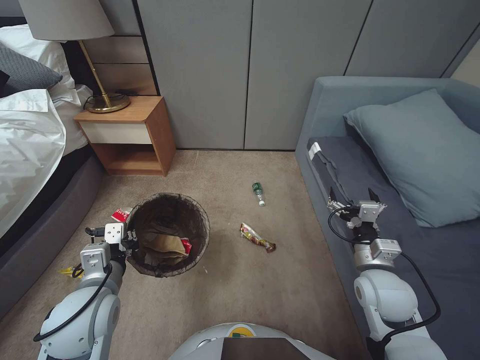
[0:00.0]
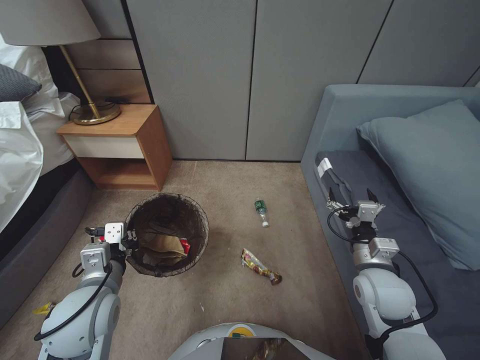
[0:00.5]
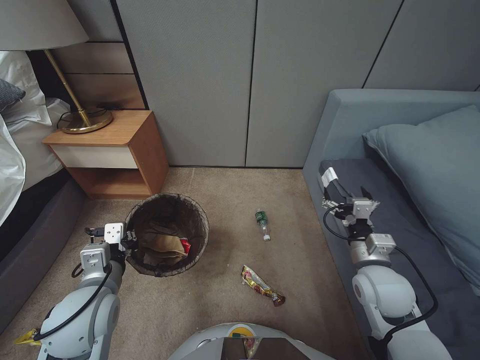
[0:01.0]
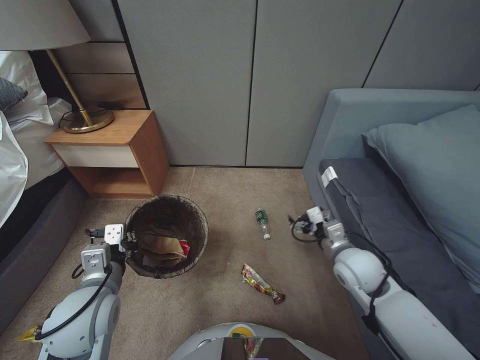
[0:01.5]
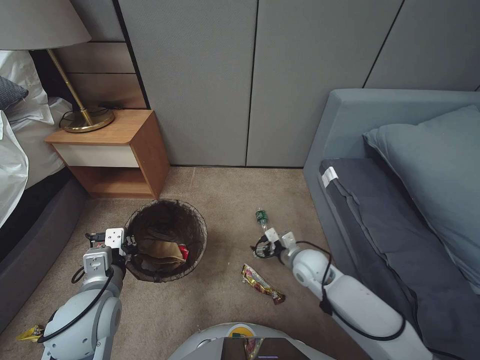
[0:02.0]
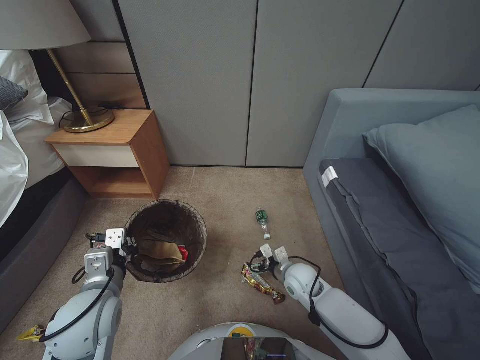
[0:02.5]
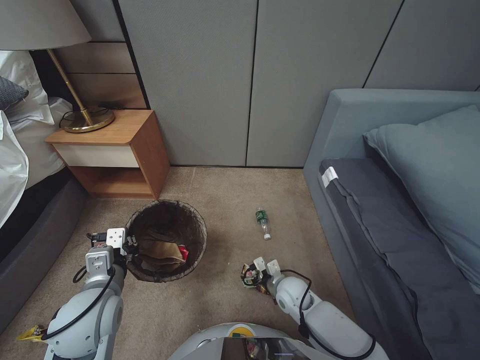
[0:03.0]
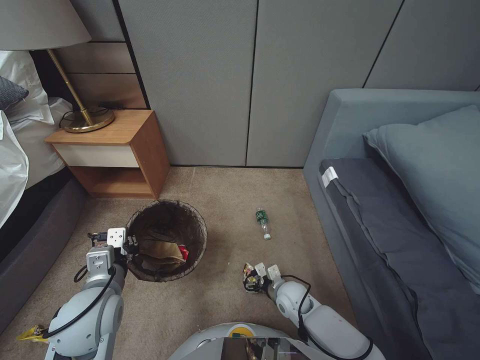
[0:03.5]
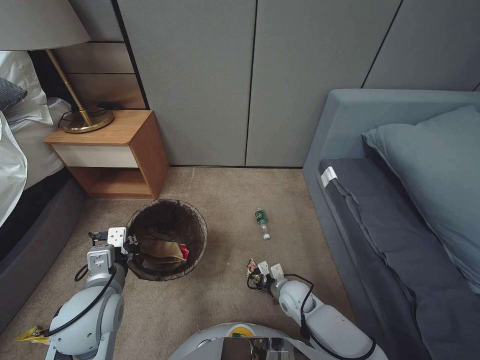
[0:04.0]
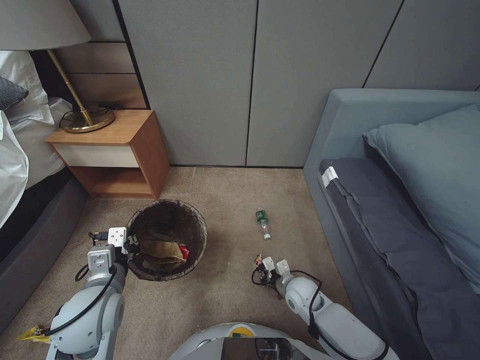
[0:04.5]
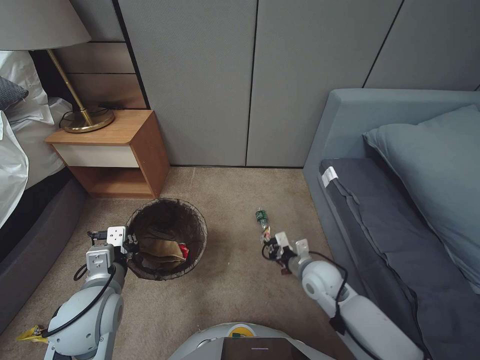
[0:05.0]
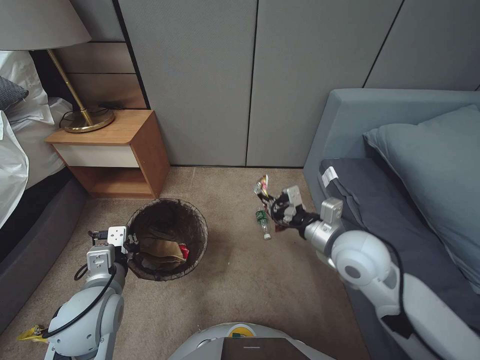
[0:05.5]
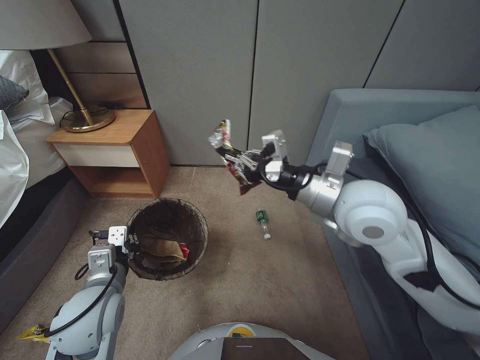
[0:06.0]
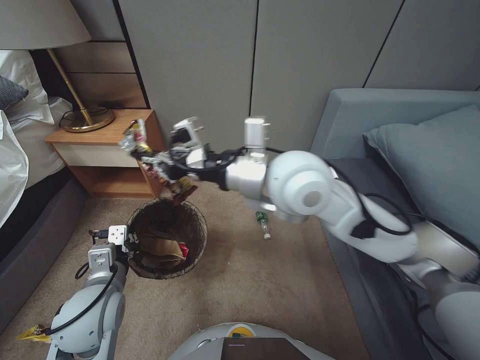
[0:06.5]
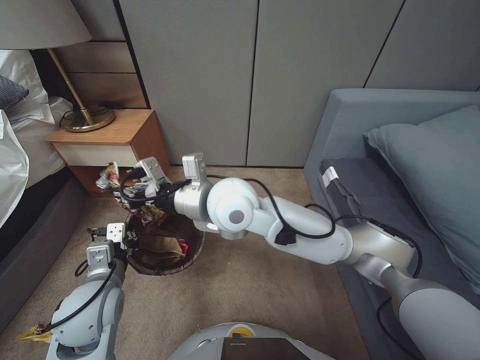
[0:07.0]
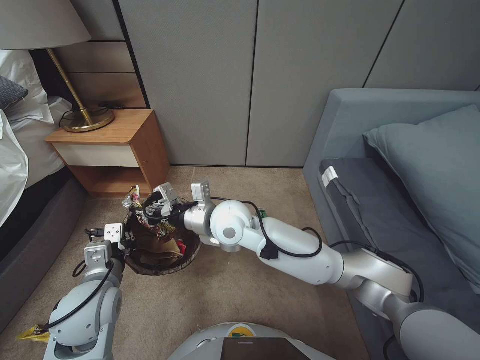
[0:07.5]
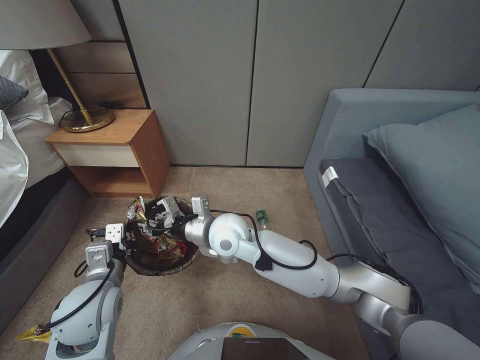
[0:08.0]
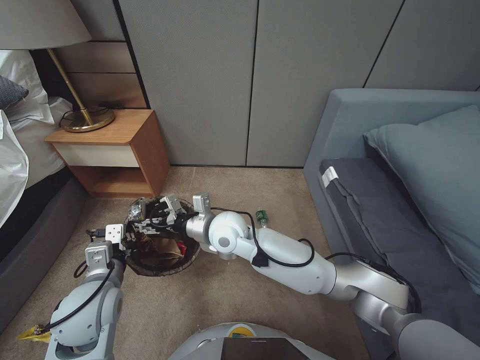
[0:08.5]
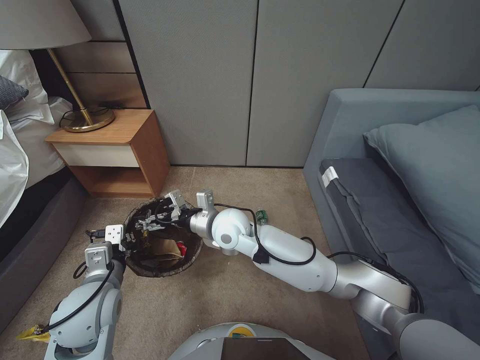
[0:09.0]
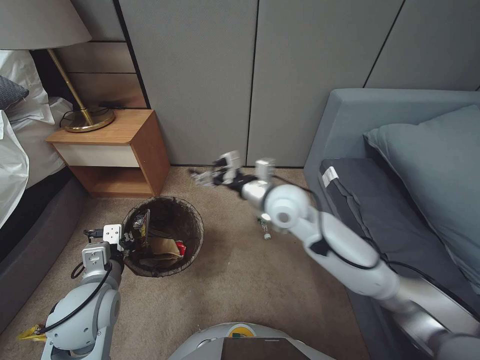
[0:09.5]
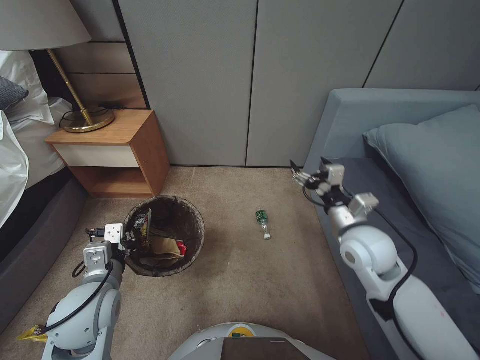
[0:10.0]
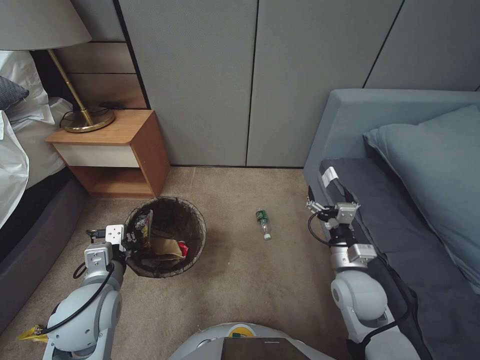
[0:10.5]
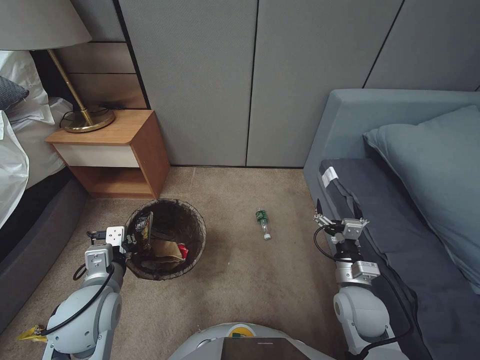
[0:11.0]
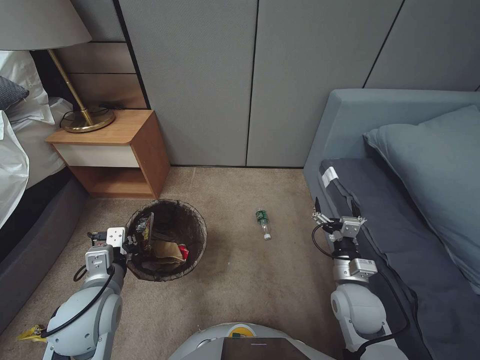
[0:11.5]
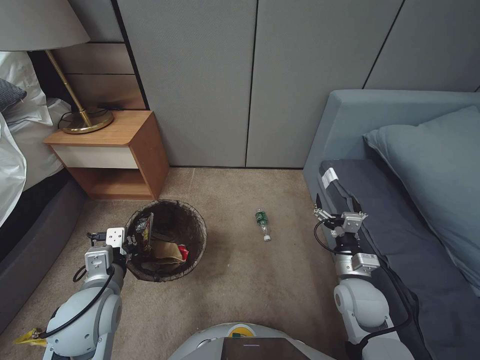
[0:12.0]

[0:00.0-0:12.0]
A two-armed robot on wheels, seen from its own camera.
Task of the whole recording: Pick up the trash bin, then pick up the garbage from the floor and place it into the trash bin.
0:00.0 to 0:02.0: The right gripper moves forward, downward and to the left, some 15 cm.
0:02.0 to 0:04.0: The right gripper is displaced downward by some 15 cm, and closes.
0:04.0 to 0:06.0: The right gripper shifts approximately 40 cm upward, and closes.
0:06.0 to 0:08.0: The right gripper travels to the left and downward by about 25 cm.
0:08.0 to 0:10.0: The right gripper moves to the right, roughly 30 cm, and opens.
0:10.0 to 0:12.0: The right gripper shifts some 15 cm downward and backward.

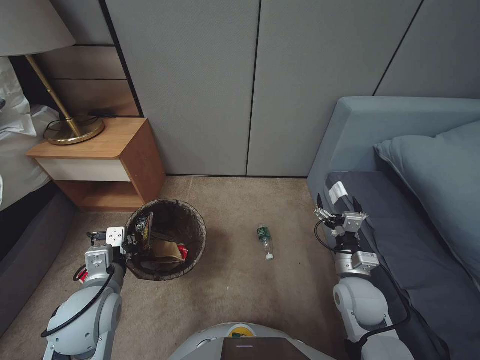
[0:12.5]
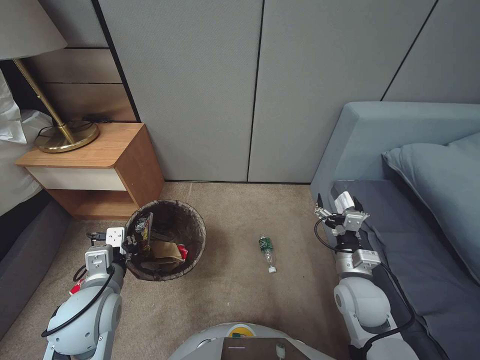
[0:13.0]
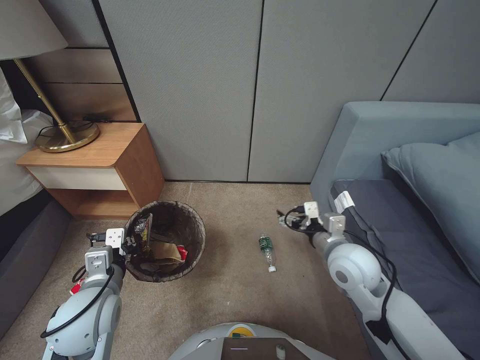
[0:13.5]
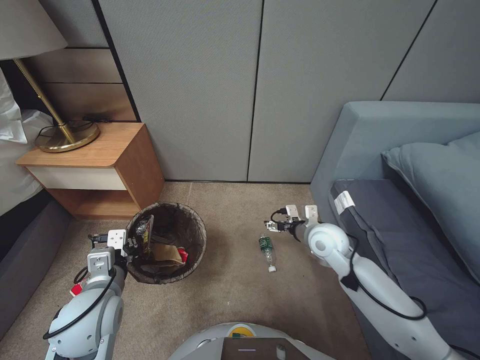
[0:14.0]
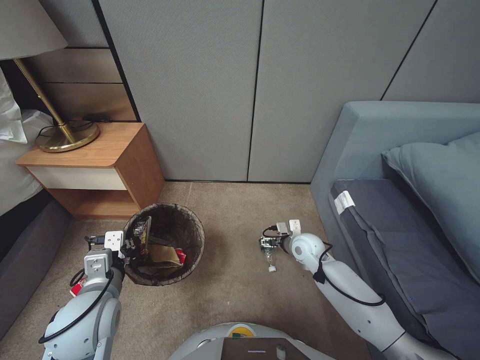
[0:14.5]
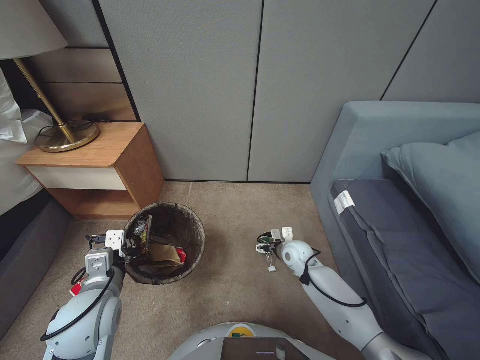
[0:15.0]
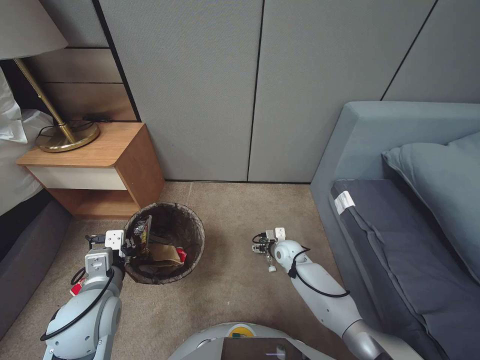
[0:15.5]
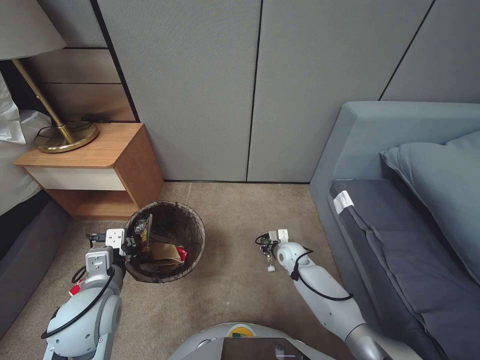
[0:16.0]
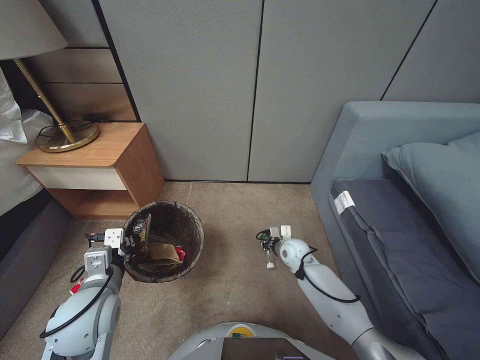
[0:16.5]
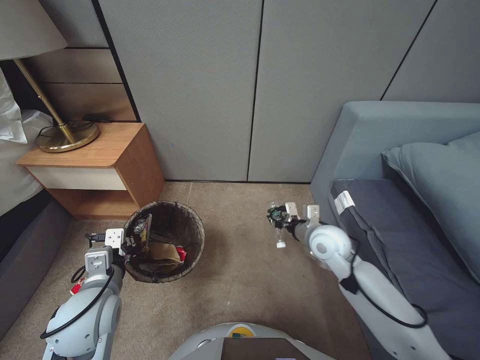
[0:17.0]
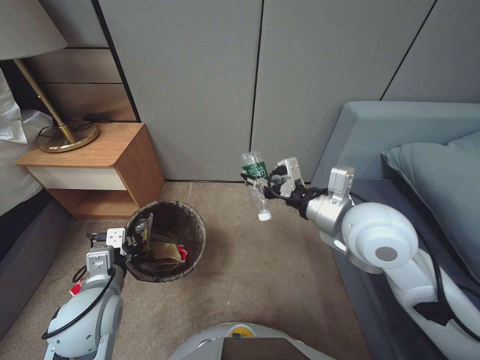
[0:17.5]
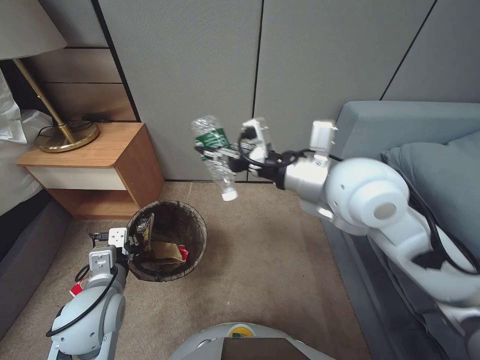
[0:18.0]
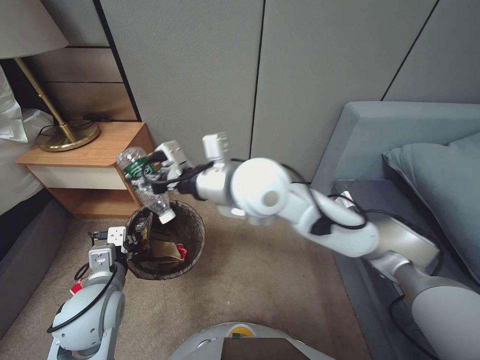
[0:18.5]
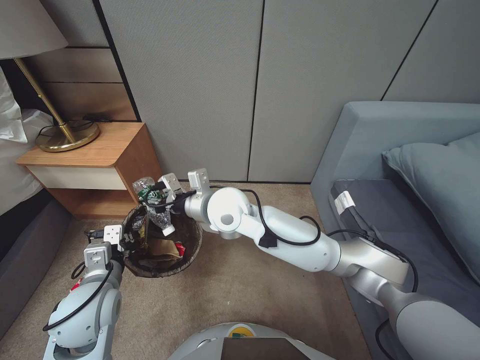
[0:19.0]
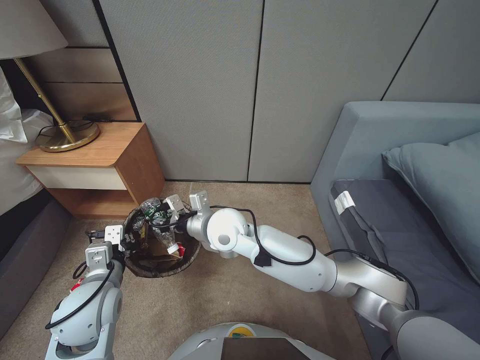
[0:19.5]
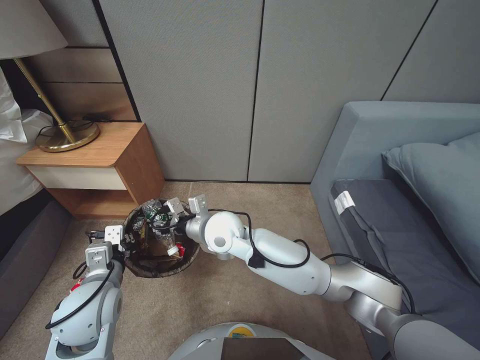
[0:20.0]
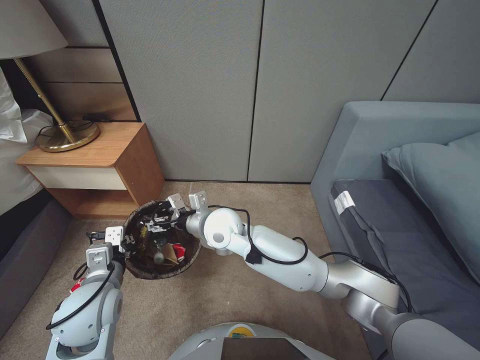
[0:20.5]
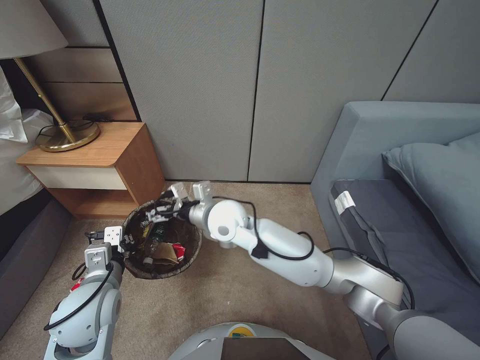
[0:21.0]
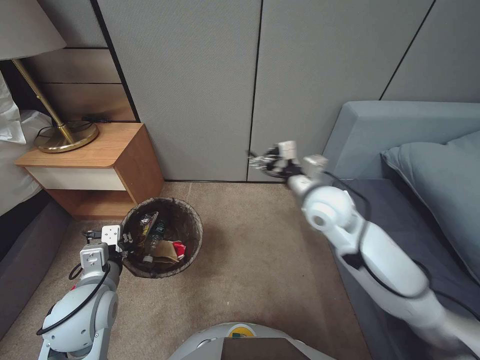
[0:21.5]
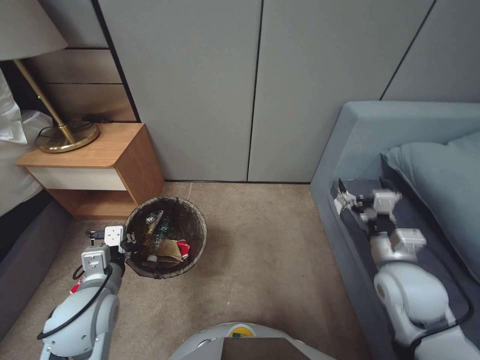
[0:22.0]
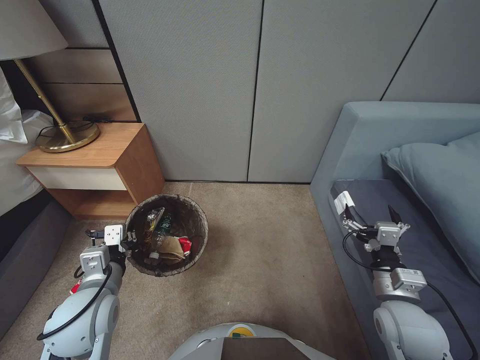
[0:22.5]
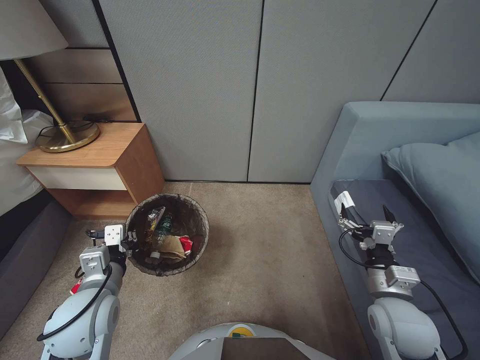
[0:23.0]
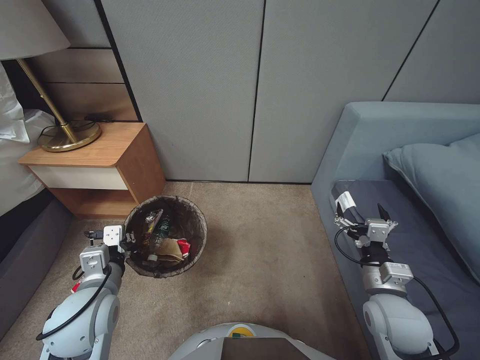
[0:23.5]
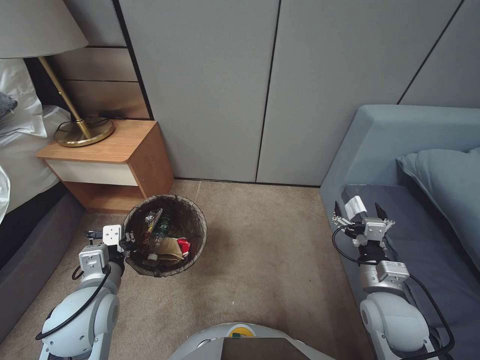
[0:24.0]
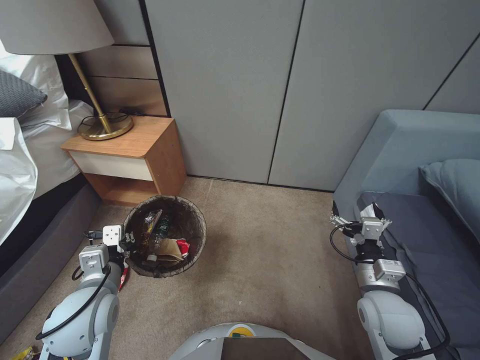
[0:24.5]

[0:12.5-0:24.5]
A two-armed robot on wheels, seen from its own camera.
Task of the whole recording: Pick up the trash bin, then pick up the garbage from the floor and place it into the trash bin.
0:12.5 to 0:14.5: The right gripper is displaced forward by approximately 15 cm.
0:14.5 to 0:16.5: The right gripper is displaced downward by roughly 10 cm, and closes.
0:16.5 to 0:18.5: The right gripper shifts roughly 50 cm upward.
0:18.5 to 0:20.5: The right gripper heads downward and to the left, covering about 25 cm, and opens up.
0:20.5 to 0:22.5: The right gripper moves to the right and backward, approximately 40 cm.

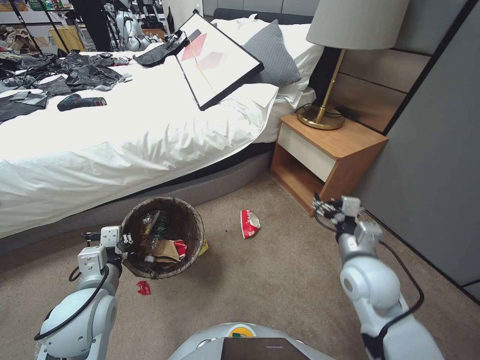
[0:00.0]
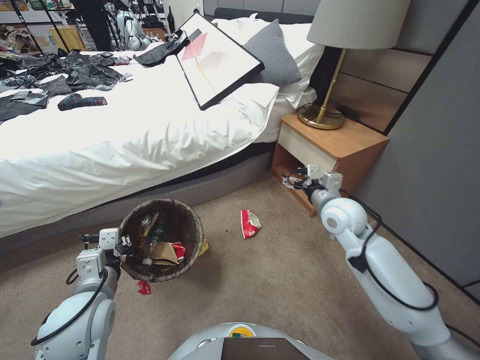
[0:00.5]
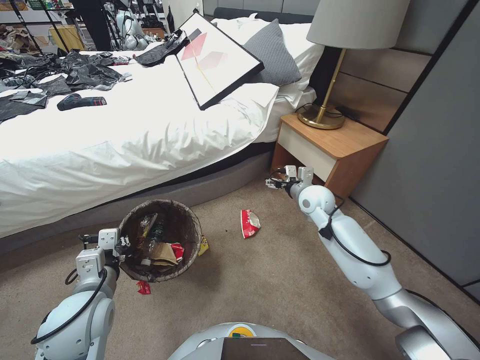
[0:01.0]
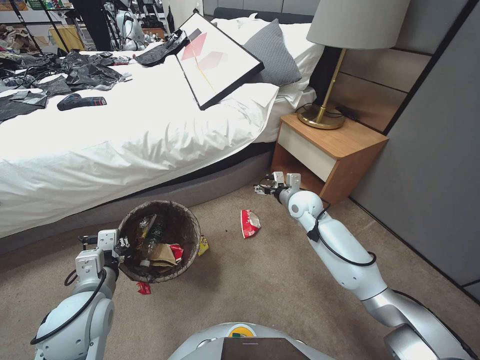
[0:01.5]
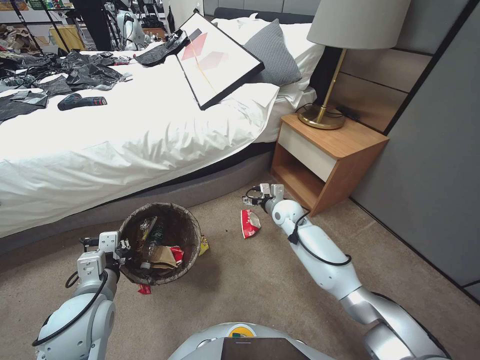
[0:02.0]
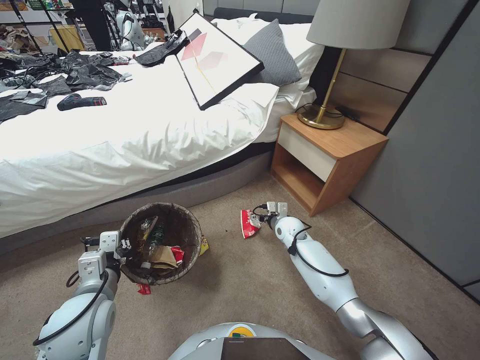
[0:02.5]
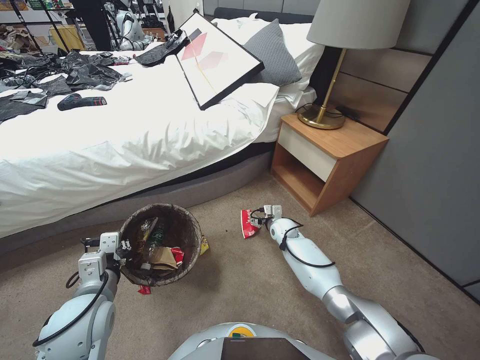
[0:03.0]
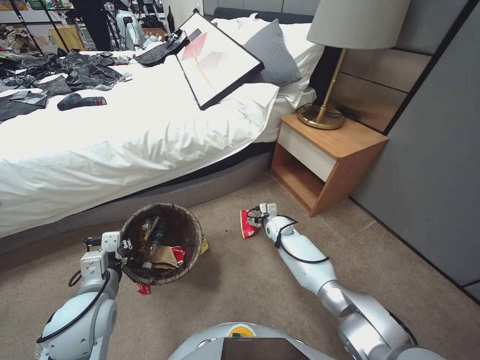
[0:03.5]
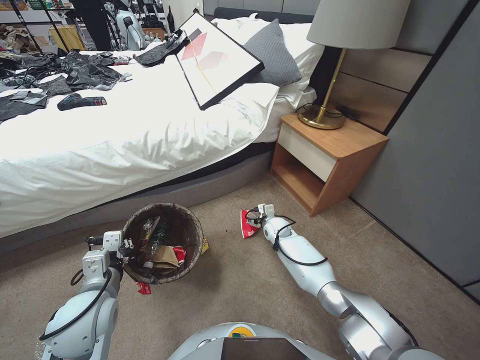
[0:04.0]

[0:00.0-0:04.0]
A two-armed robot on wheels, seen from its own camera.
Task of the whole recording: Pick up the trash bin, then pick up the garbage from the floor and place it into the trash bin.
0:00.0 to 0:02.0: The right gripper travels forward by about 25 cm.
0:02.0 to 0:04.0: The right gripper travels downward by roughly 15 cm.
